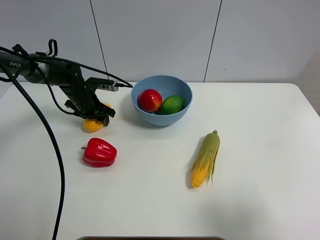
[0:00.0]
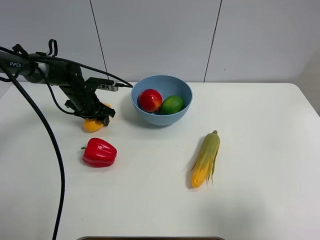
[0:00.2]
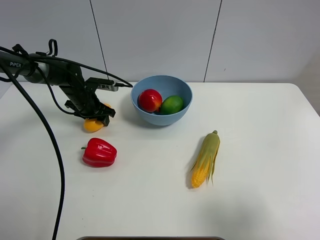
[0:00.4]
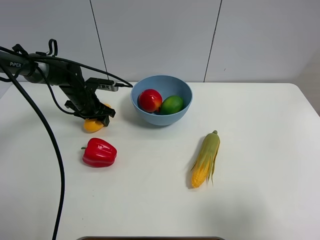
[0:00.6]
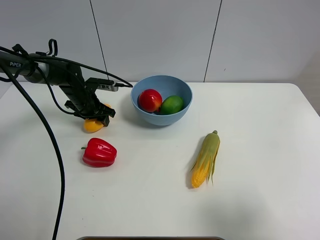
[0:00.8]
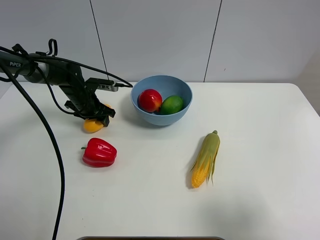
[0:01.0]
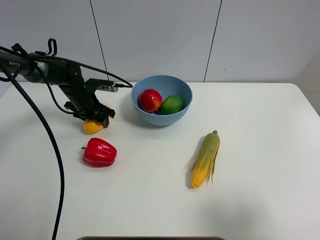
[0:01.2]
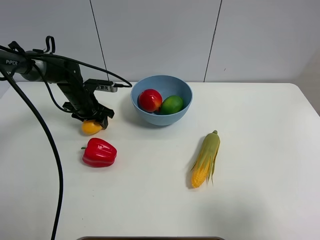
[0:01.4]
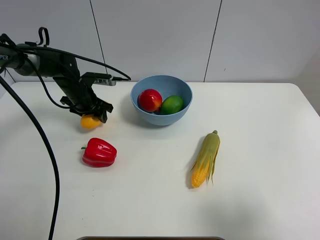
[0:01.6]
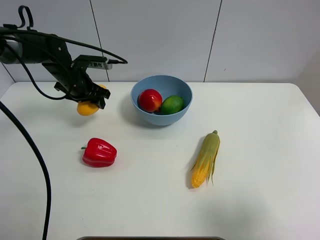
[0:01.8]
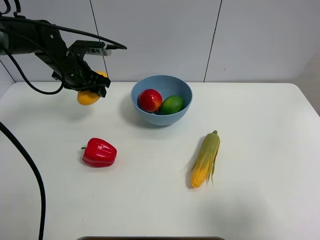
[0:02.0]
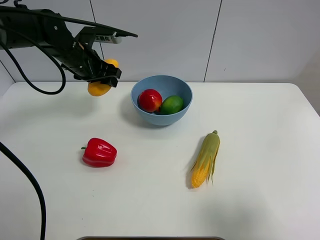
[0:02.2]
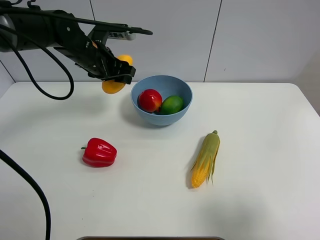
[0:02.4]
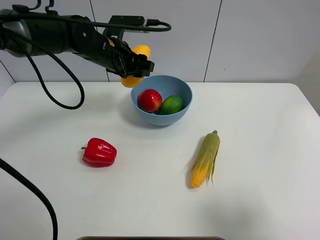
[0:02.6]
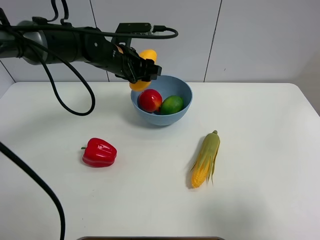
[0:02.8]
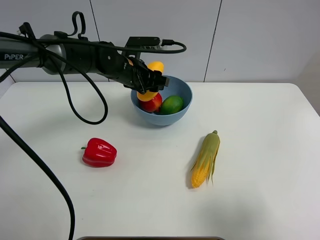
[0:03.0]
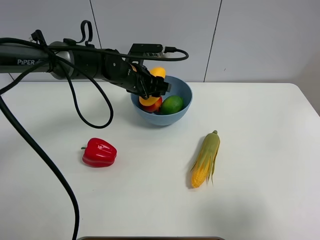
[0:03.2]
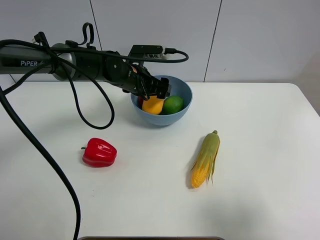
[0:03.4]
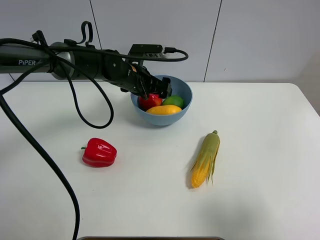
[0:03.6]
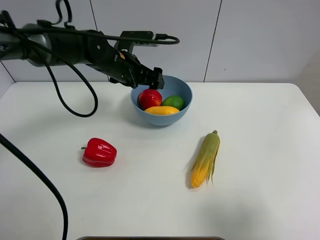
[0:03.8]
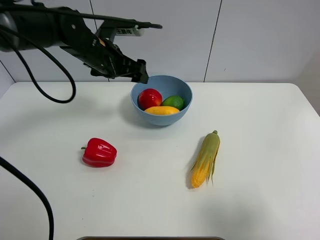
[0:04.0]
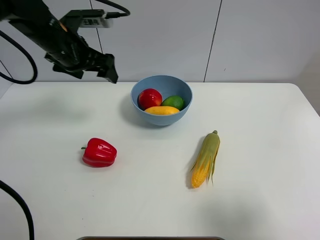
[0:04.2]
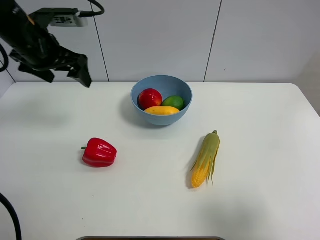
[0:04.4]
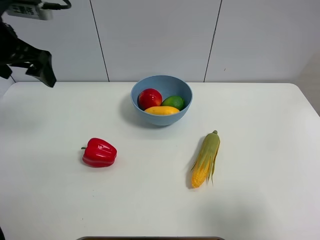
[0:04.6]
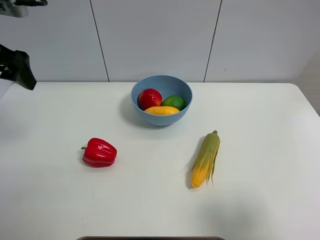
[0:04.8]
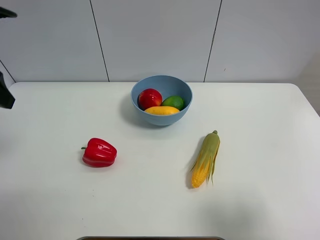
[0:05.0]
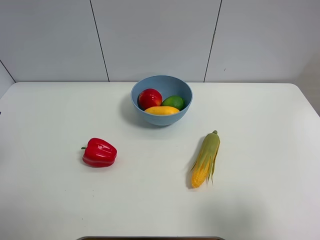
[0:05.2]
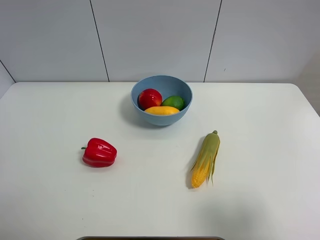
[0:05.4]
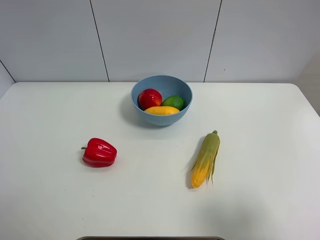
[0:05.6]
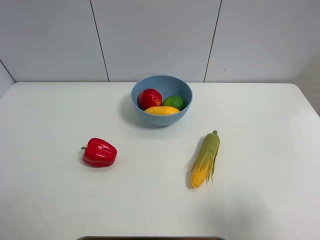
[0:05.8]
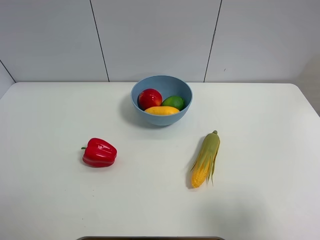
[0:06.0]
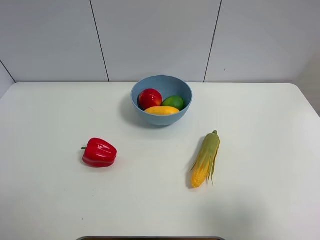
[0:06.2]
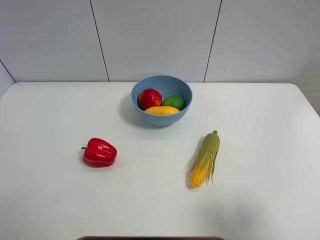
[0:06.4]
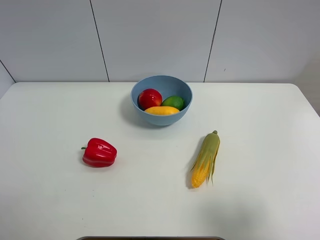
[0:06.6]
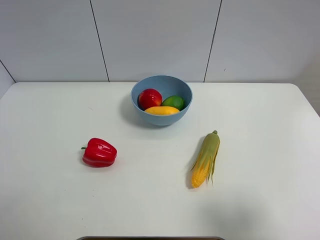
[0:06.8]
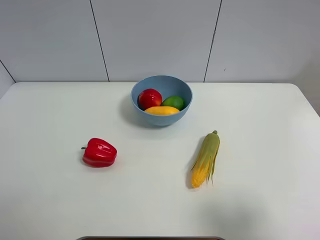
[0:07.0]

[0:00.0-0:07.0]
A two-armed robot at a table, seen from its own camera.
Task of the whole recording: Put the three fruits on the table into a bowl.
Step, 0:00.2 to 0:03.6: Place the mango in the blue bowl with left gripper.
0:00.0 to 0:01.4: The grippers move only a little.
0:01.4 to 0:02.8: The left gripper heads to the right and upward, covering some 20 cm.
0:02.8 to 0:04.2: The left gripper is displaced to the left and upward by some 15 cm, and opens its fingers.
0:04.2 to 0:05.6: The left gripper shifts approximately 30 cm backward and to the left.
